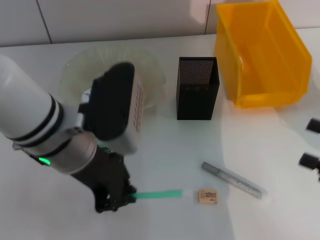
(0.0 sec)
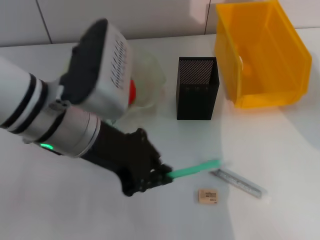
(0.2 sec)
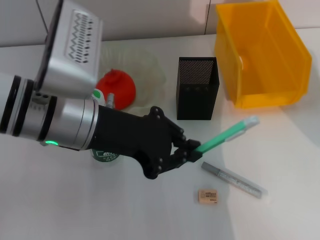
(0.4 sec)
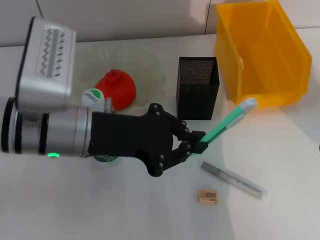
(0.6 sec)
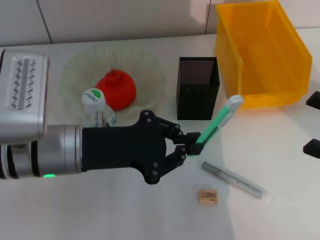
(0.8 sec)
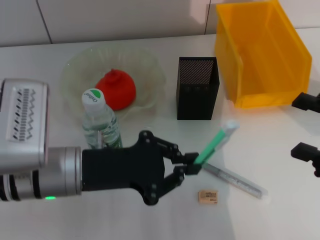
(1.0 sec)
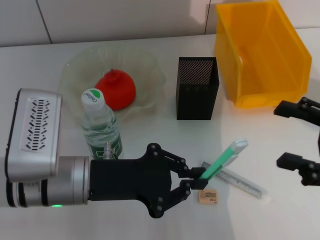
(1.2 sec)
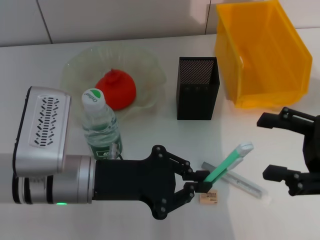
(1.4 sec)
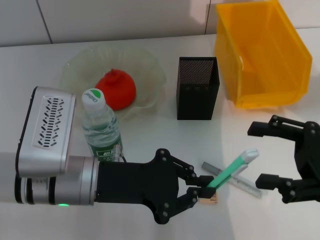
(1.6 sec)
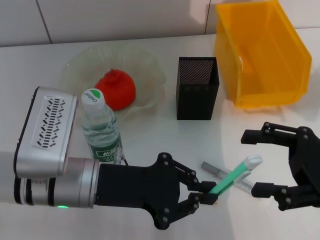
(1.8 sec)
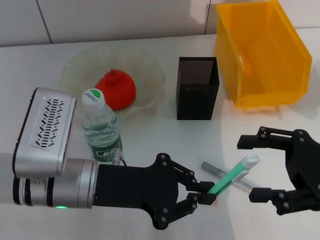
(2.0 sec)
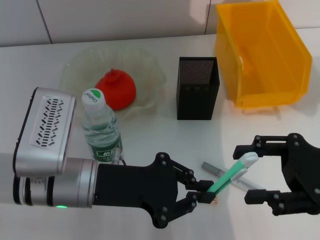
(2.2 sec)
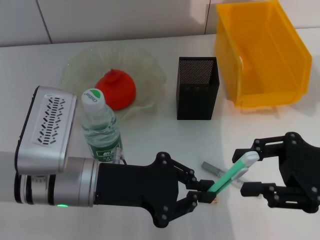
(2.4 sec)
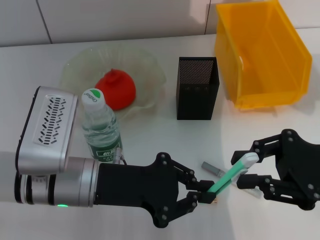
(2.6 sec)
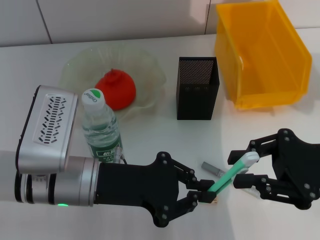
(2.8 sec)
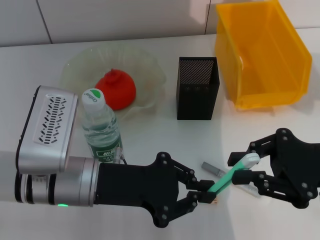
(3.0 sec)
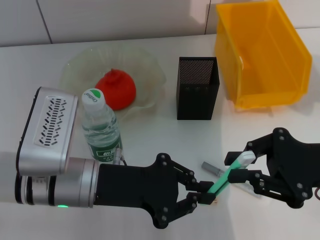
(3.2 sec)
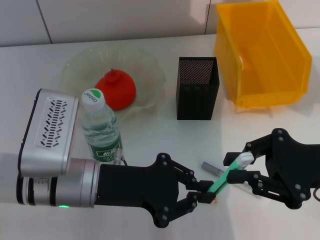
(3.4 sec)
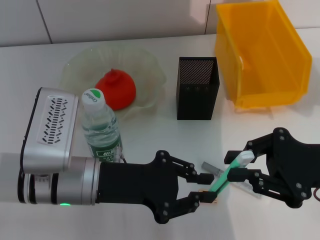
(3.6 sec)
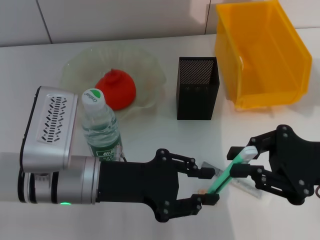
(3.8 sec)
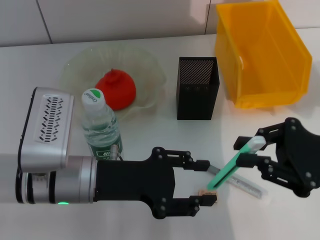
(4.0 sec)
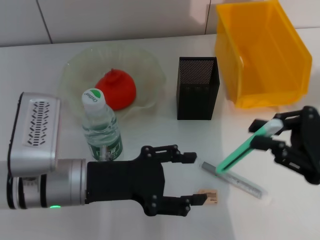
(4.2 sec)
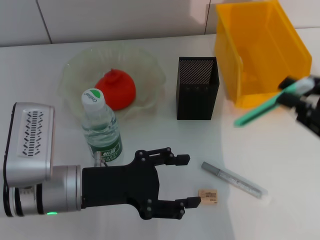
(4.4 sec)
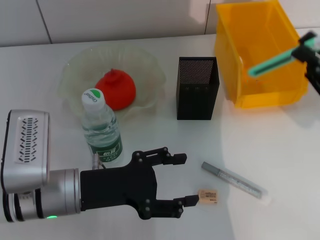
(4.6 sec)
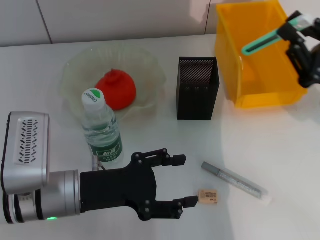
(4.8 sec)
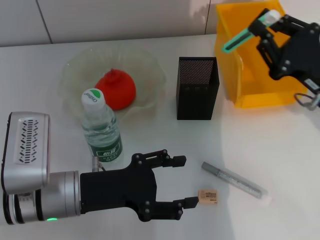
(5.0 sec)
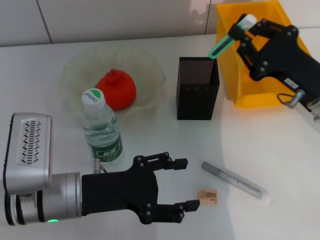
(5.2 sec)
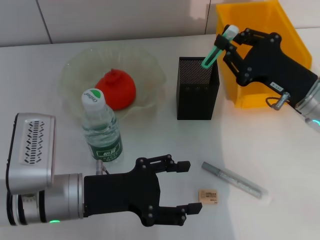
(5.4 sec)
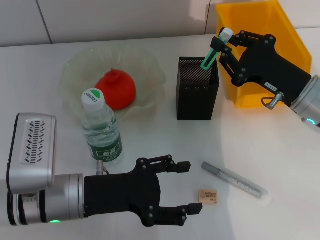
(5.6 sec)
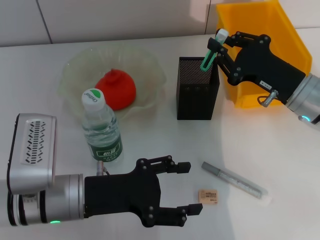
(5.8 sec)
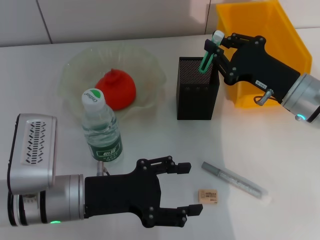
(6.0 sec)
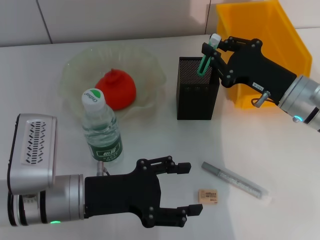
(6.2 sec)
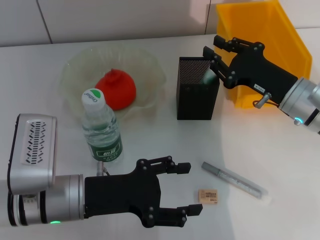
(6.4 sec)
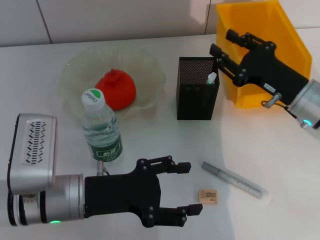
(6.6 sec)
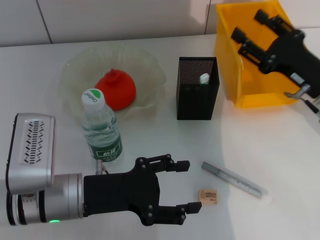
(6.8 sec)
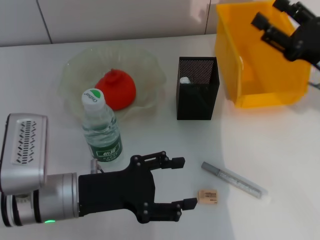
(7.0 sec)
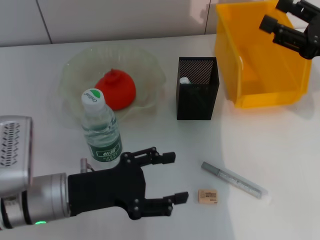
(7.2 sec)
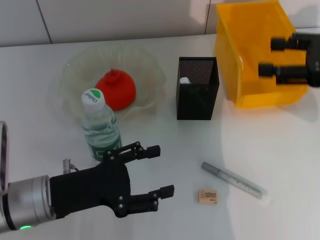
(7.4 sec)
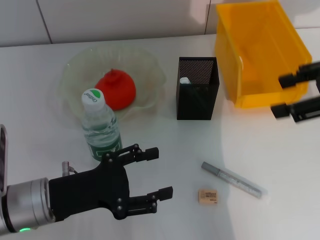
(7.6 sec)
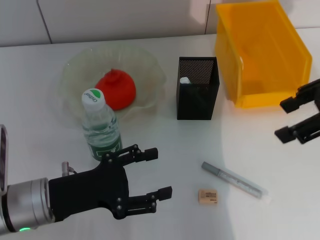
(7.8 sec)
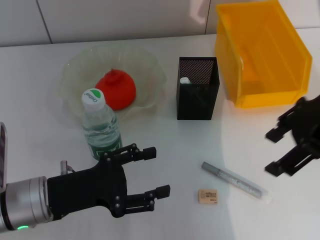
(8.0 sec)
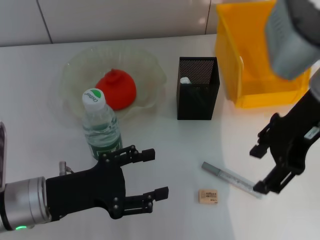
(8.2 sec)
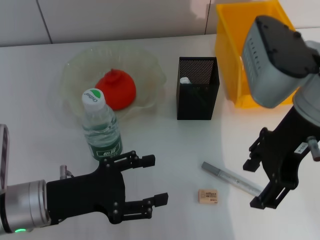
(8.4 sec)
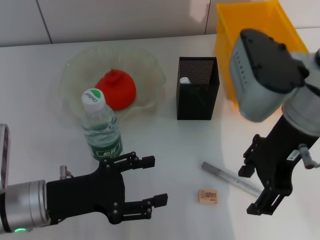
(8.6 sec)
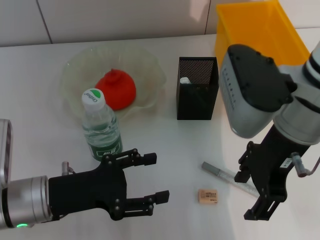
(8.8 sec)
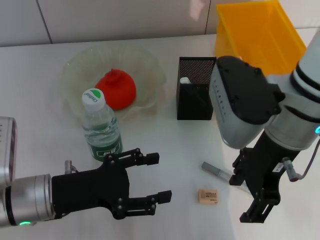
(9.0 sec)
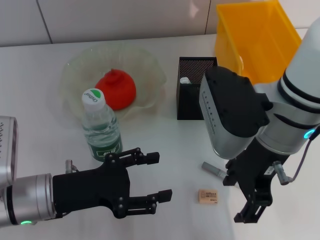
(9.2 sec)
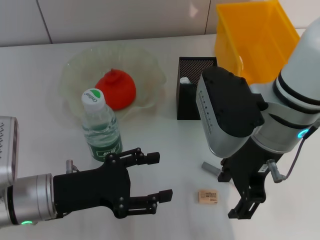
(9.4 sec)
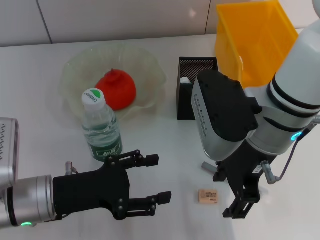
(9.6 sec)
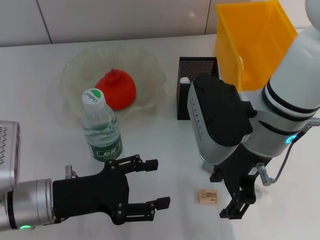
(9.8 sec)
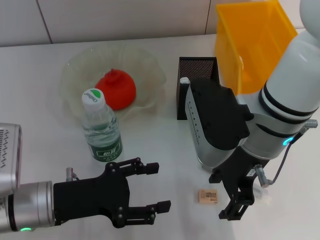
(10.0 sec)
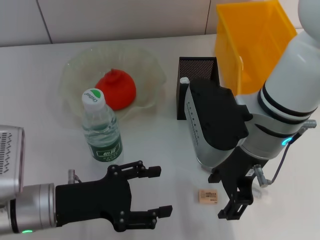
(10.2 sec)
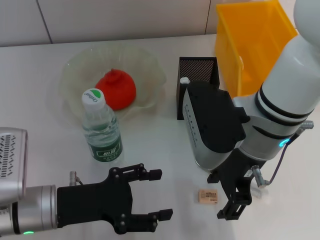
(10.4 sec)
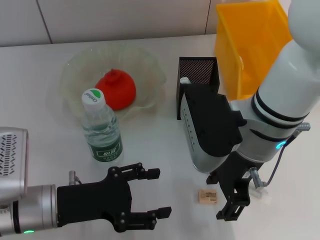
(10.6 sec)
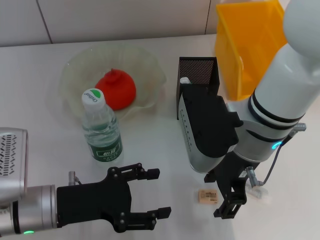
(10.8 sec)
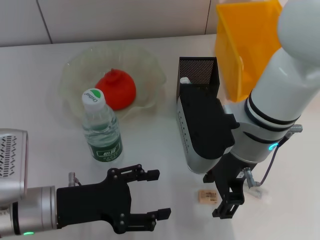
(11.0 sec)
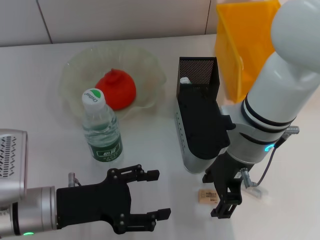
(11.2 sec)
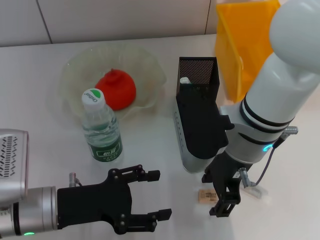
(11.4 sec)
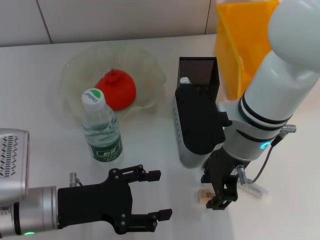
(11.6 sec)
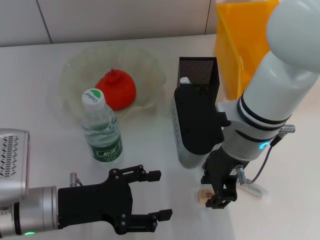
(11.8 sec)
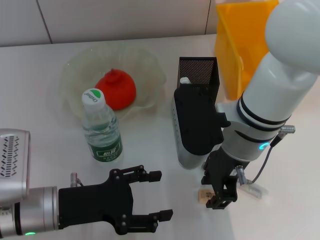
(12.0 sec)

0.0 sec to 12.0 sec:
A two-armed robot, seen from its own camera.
Step, 0.0 sec to 4.0 sec: Pass the blue utility knife from the left hand to the right hand.
Step, 4.2 sec to 6.4 sec: Place the blue utility knife into the pen holder with the right hand.
0.0 sec to 1.6 sec: The right gripper shifts roughly 5 cm to the left. The left gripper moves downward, some 10 cm.
1.6 sec to 3.0 sec: The right gripper closes up.
3.0 sec to 4.4 sec: The left gripper opens up.
4.4 sec to 6.0 sec: The right gripper moves forward and to the left, roughly 15 cm.
6.0 sec to 7.6 sec: The right gripper travels upward by approximately 15 cm, and opens its fingers.
7.6 sec to 9.0 sec: The right gripper travels to the left by approximately 15 cm.
10.4 sec to 12.0 sec: The grippers stay close to where they were, moving slightly.

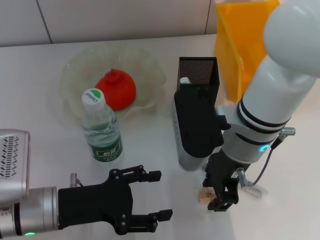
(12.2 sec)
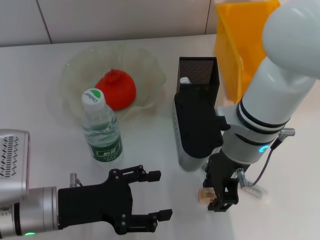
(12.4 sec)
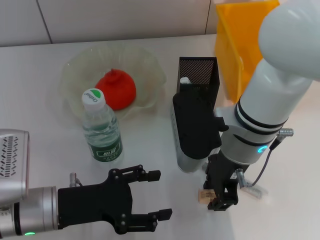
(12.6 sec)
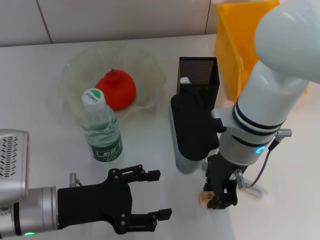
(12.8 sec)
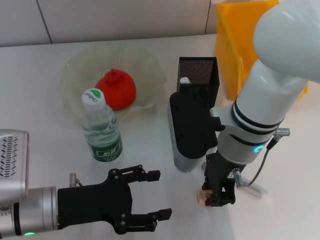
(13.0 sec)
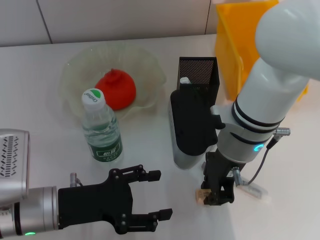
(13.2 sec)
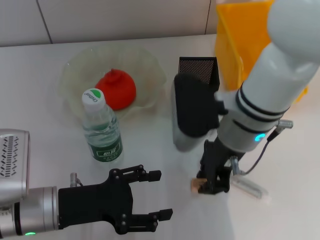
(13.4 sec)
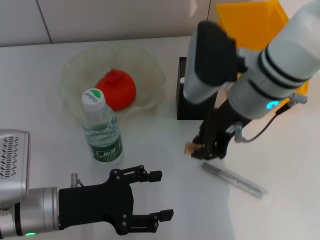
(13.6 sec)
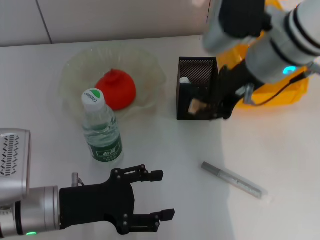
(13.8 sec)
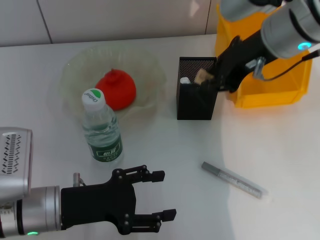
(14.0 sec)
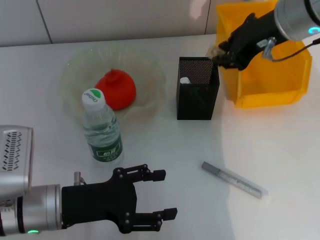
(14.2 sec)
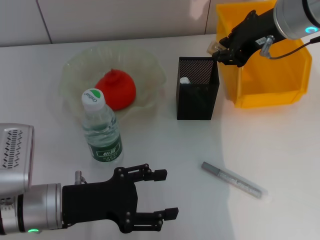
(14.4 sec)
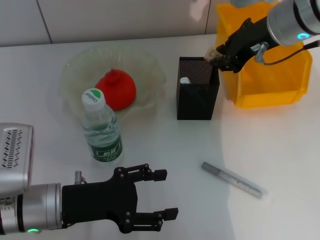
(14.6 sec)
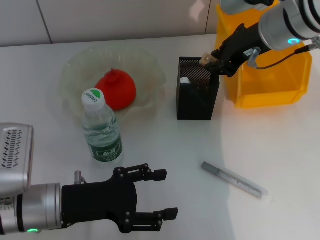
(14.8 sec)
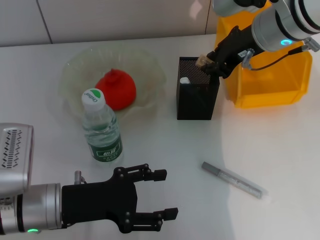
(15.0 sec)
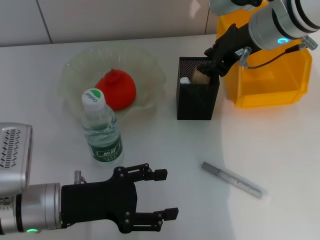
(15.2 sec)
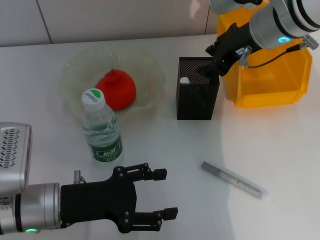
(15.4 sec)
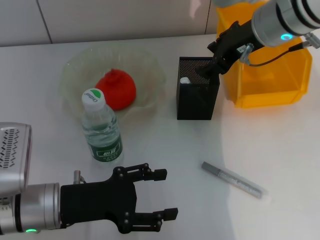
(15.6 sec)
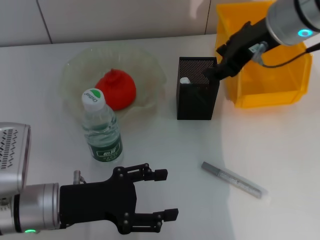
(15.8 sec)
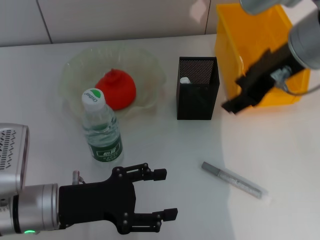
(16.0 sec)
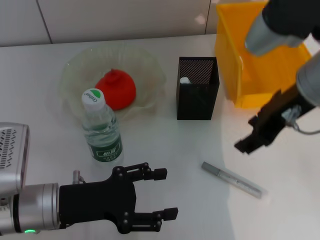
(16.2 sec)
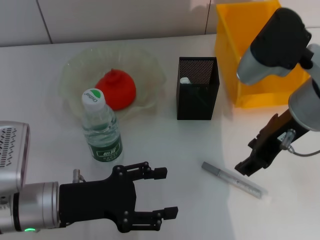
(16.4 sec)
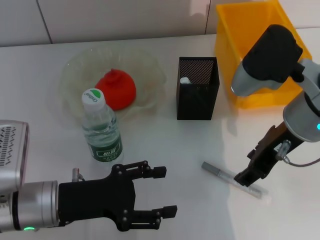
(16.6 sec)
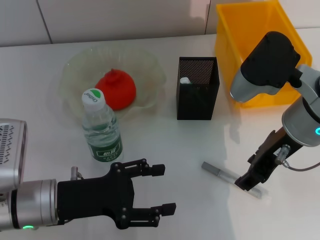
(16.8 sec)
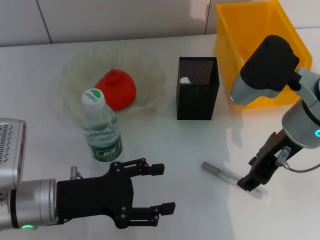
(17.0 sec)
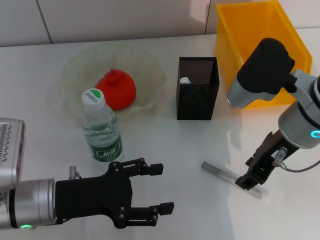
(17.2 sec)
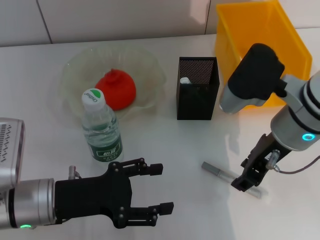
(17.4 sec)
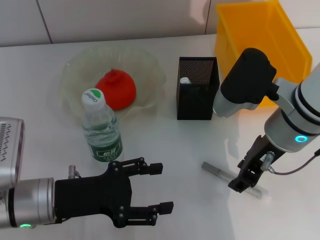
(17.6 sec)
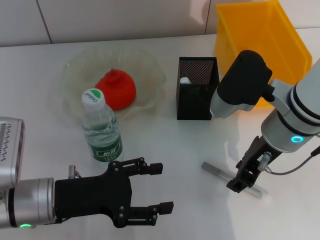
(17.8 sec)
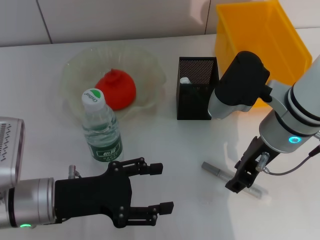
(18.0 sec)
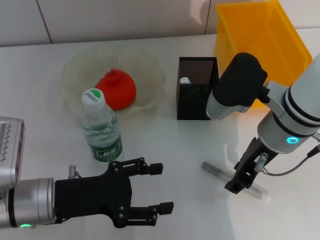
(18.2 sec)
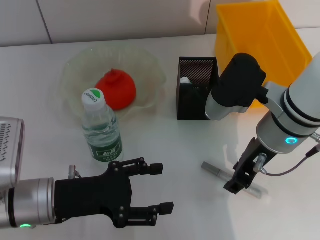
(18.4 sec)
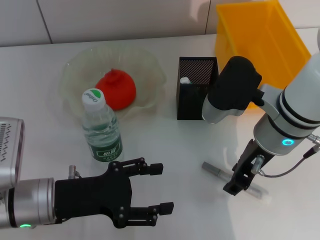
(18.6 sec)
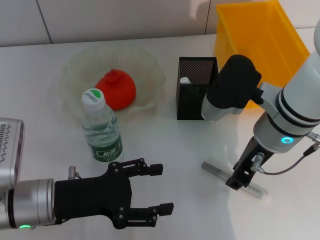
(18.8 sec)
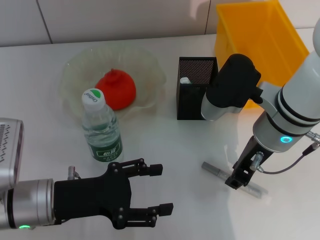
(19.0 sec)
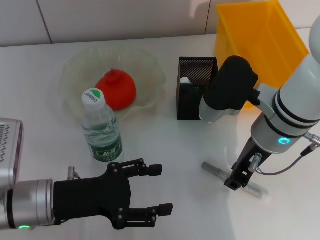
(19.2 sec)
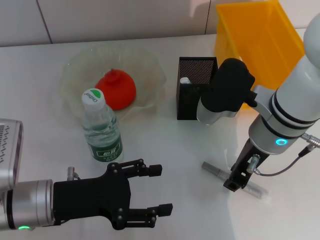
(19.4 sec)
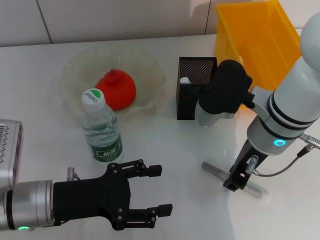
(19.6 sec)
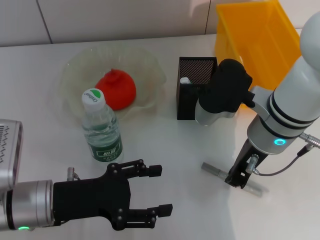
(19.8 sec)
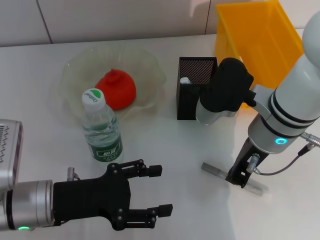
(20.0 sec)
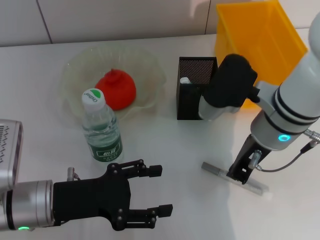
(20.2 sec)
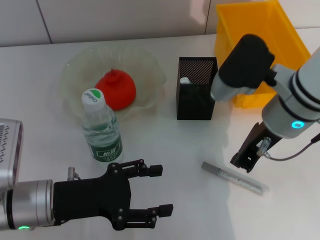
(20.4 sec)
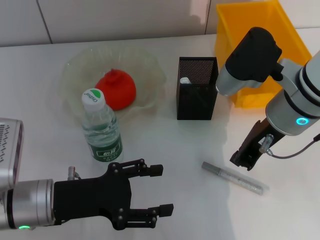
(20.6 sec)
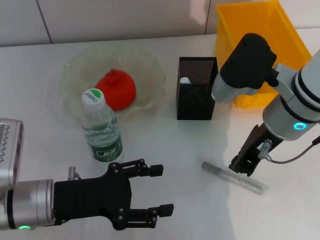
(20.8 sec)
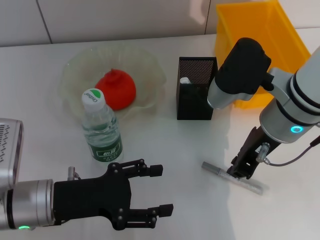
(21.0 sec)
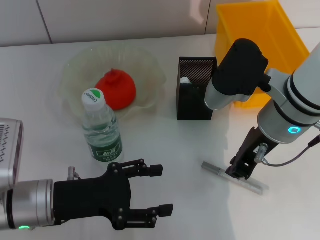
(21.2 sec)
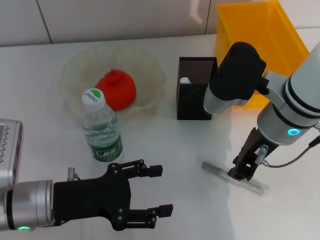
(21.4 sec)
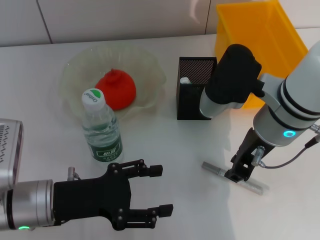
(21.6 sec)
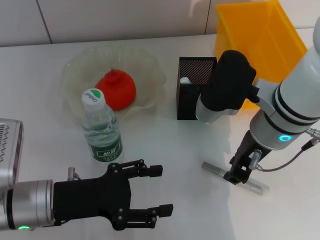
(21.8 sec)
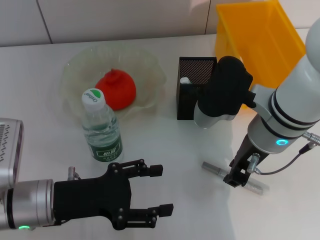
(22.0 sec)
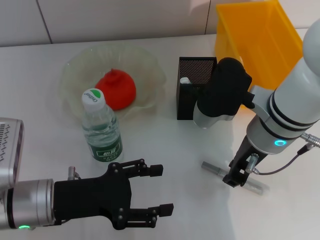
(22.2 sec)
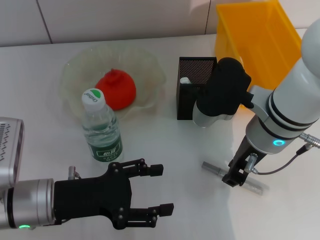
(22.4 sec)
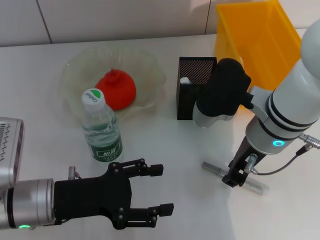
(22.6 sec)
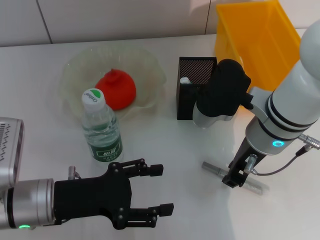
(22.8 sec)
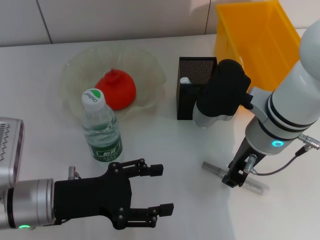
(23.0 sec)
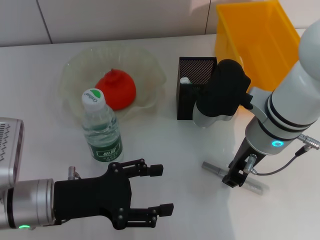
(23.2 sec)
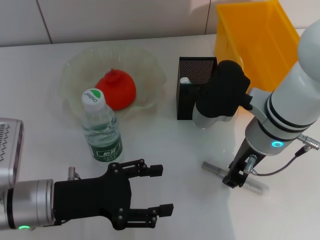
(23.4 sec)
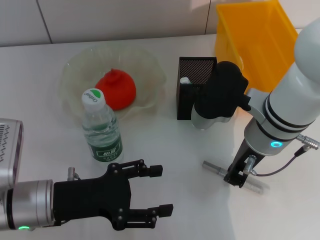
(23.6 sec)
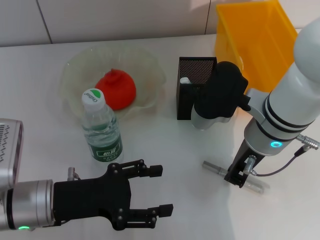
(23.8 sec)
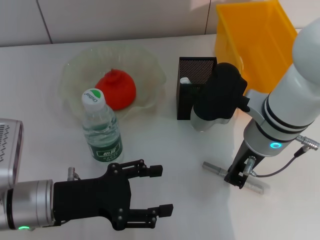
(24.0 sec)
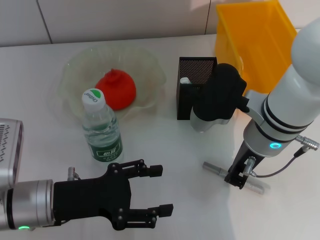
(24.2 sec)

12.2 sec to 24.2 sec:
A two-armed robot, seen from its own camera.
Step, 13.4 sec to 15.6 sec: Put the eraser into the pen holder with the right hand.
Step, 15.8 sec to 24.2 sec: Grab the gray glue with the right hand.
12.2 sec to 13.8 sec: The right gripper moves upward, some 10 cm.
13.8 sec to 15.2 sec: The right gripper moves about 5 cm.
15.2 sec to 16.6 sec: The right gripper travels backward by some 10 cm, and opens up.
16.6 sec to 18.2 sec: The grippers stay close to where they were, moving slightly.
18.2 sec to 22.6 sec: The grippers stay close to where they were, moving slightly.
22.6 sec to 24.2 sec: Both grippers stay about where they are.
